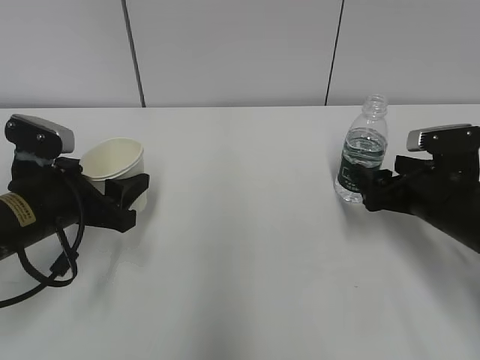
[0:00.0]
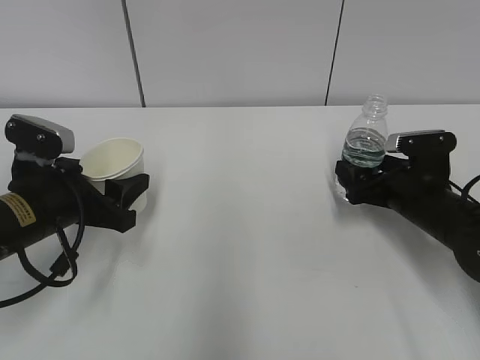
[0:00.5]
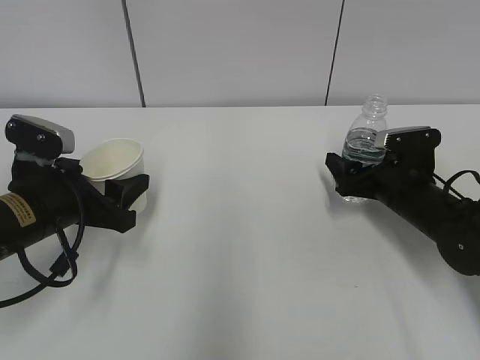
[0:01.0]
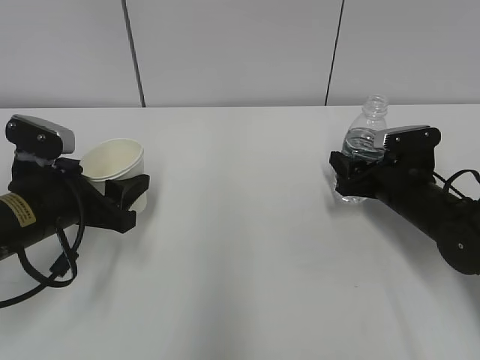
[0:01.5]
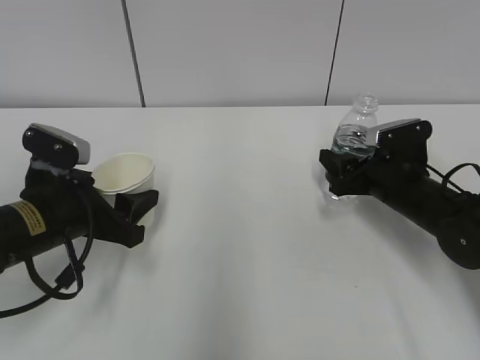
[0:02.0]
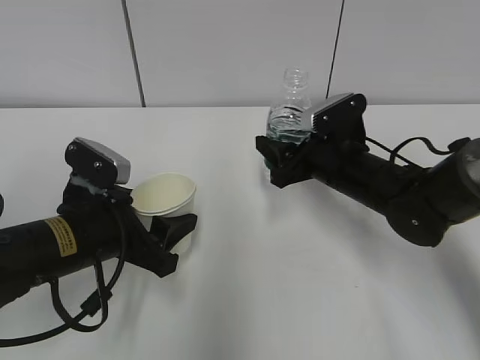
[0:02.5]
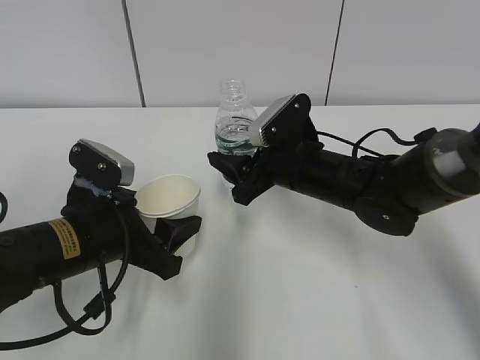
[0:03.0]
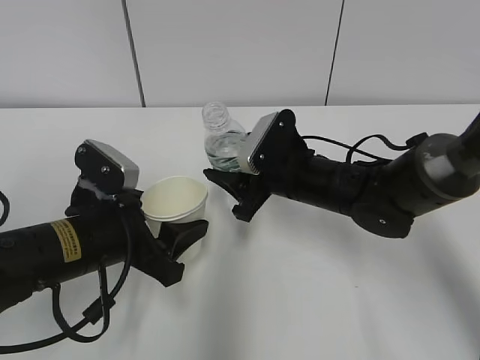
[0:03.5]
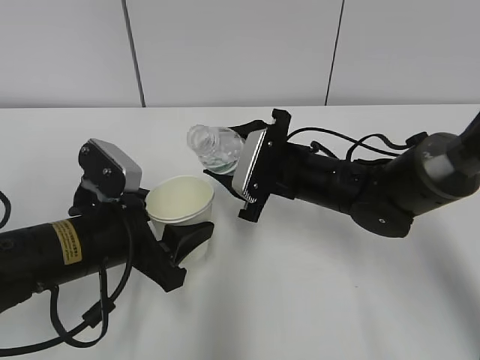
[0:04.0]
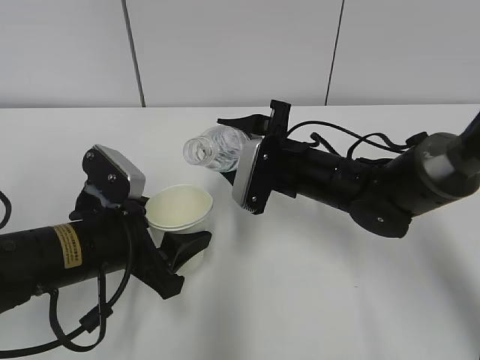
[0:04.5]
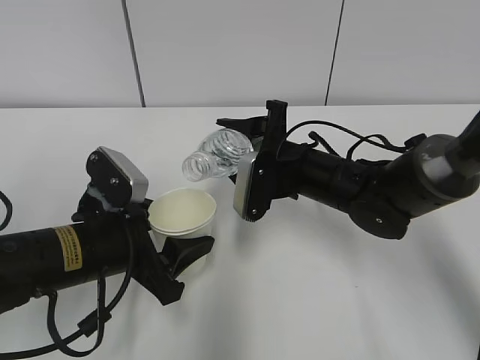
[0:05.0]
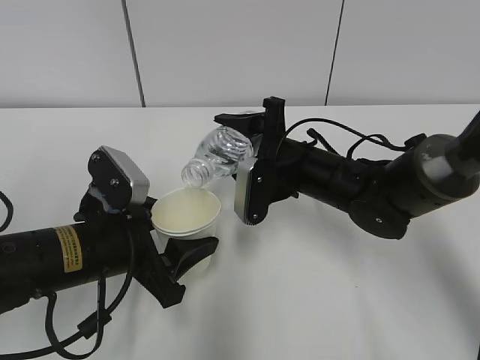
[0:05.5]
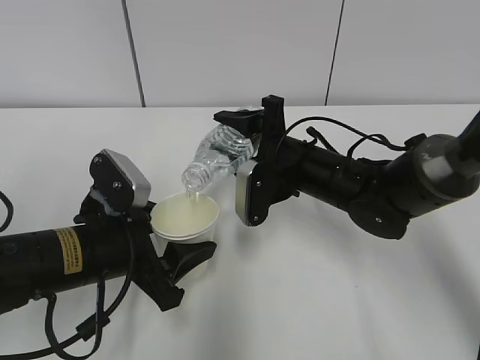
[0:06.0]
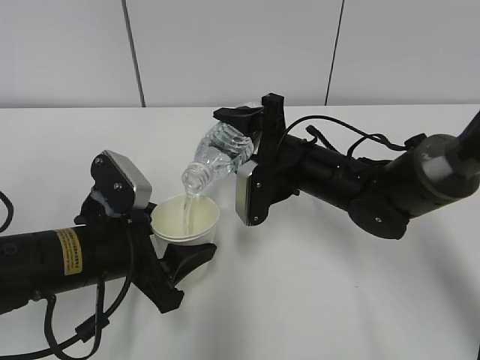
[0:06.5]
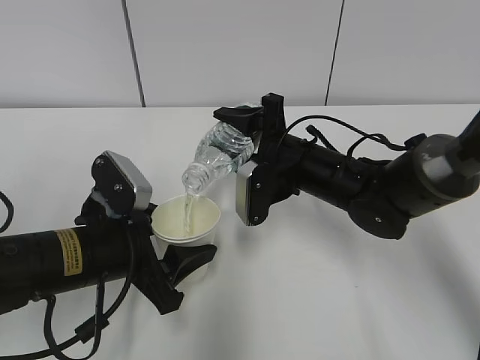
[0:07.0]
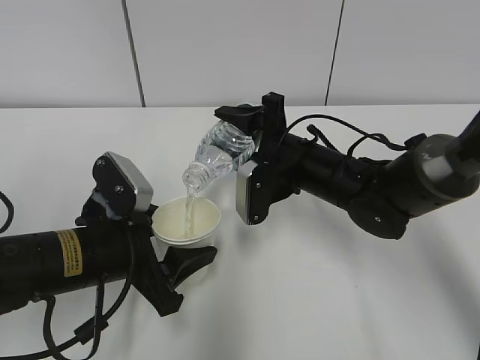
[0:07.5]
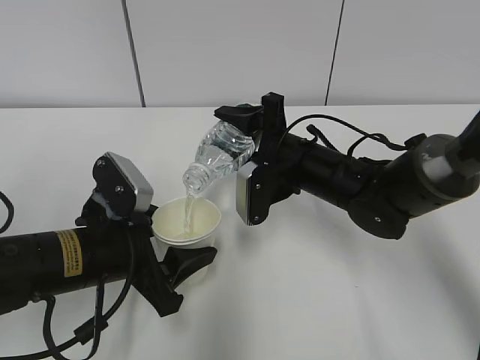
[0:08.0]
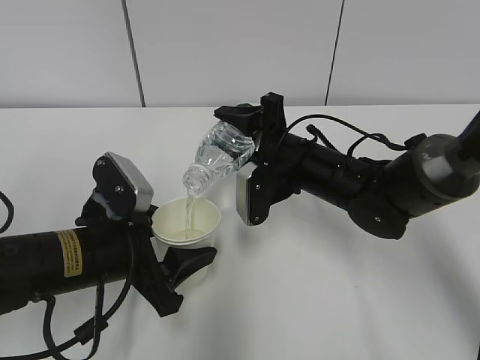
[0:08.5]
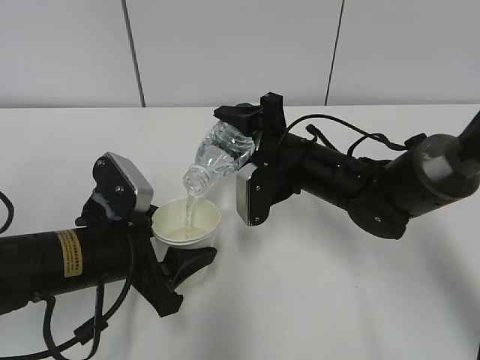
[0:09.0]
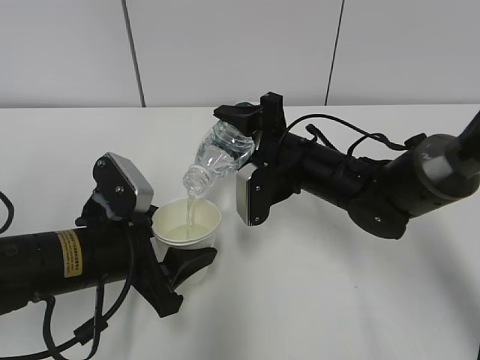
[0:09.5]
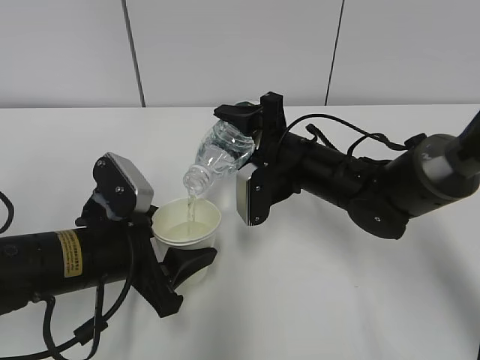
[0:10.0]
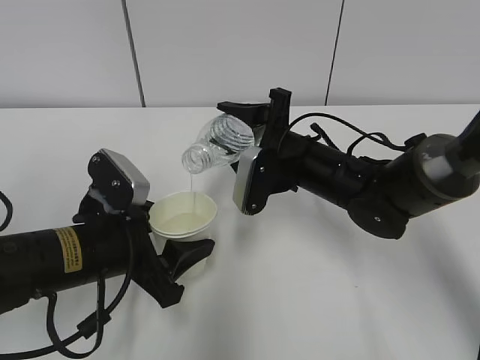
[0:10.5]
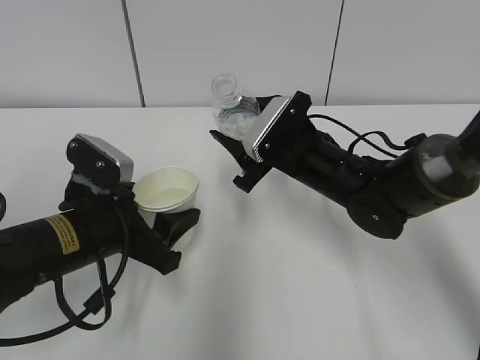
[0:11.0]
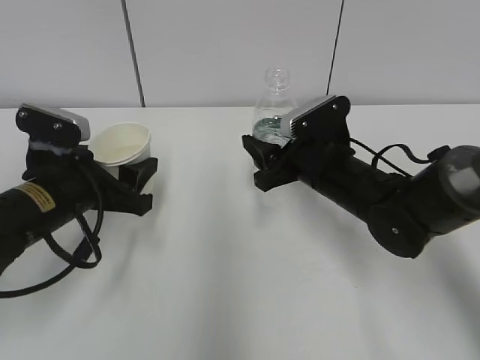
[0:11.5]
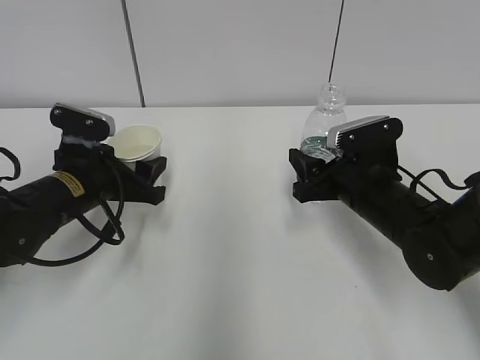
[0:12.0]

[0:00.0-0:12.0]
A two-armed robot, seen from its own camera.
Step, 0:00.0 to 0:03.0: Lift the paper cup with the left hand.
Step, 0:03.5 to 0:07.0: Fill water with the left hand.
Step, 0:03.5 to 0:07.0: Pour water with the right hand.
0:00.0 to 0:02.0: The right gripper moves forward, some 5 cm, and closes.
0:02.0 to 0:04.0: The left gripper moves to the right, roughly 5 cm. The right gripper goes about 15 cm to the left.
0:06.0 to 0:08.0: The grippers stay close to where they were, moving slightly.
0:08.0 to 0:10.0: Neither gripper changes place.
0:10.0 to 0:12.0: The left gripper shifts some 10 cm forward; the right gripper moves to the right, roughly 5 cm.

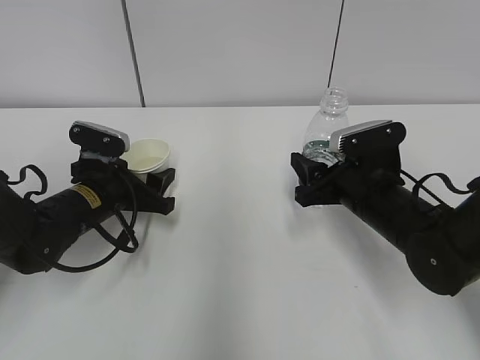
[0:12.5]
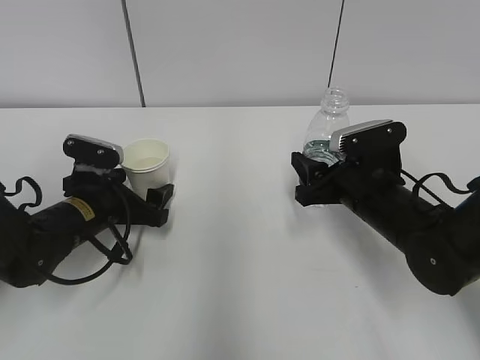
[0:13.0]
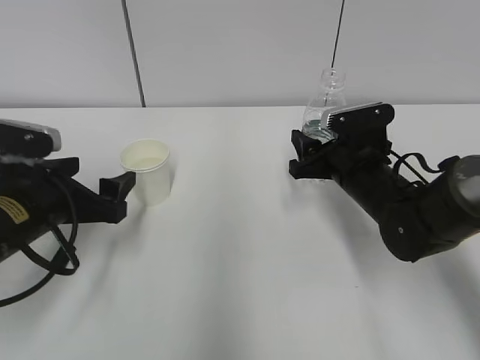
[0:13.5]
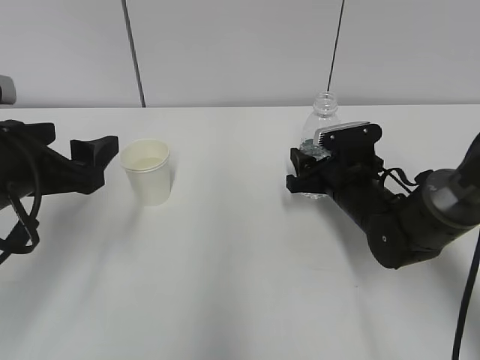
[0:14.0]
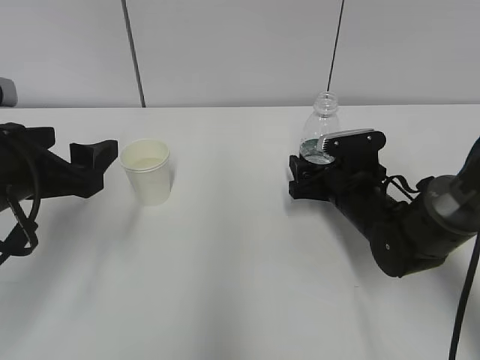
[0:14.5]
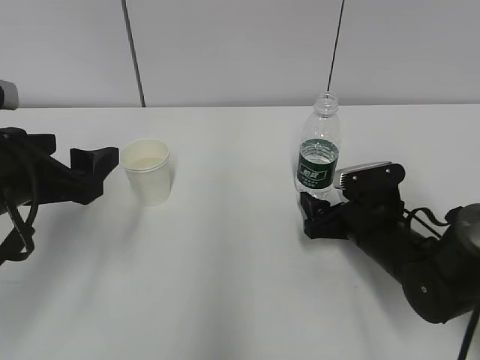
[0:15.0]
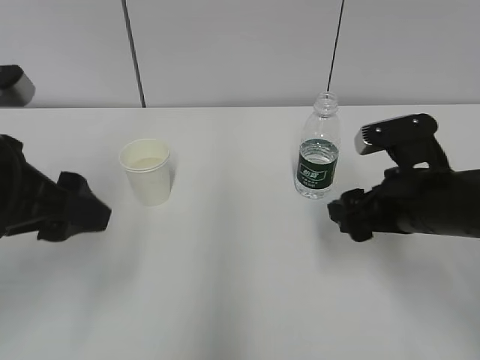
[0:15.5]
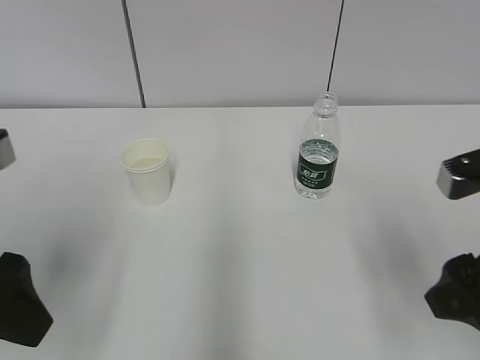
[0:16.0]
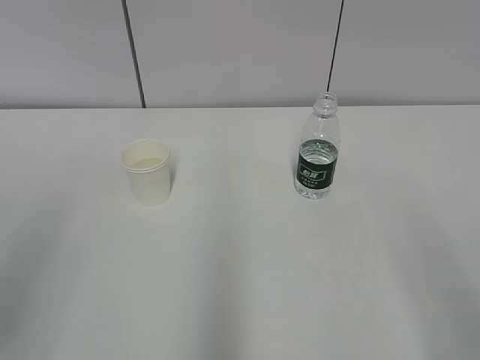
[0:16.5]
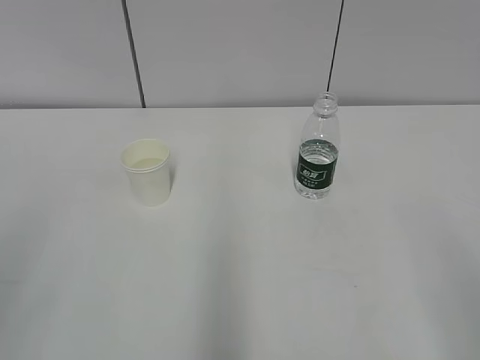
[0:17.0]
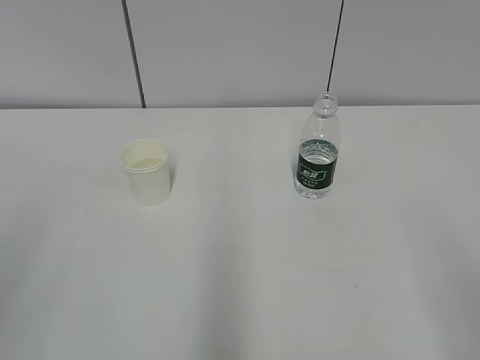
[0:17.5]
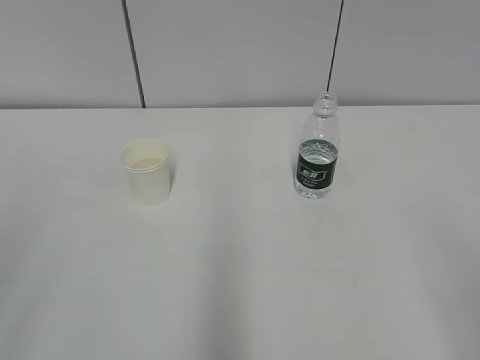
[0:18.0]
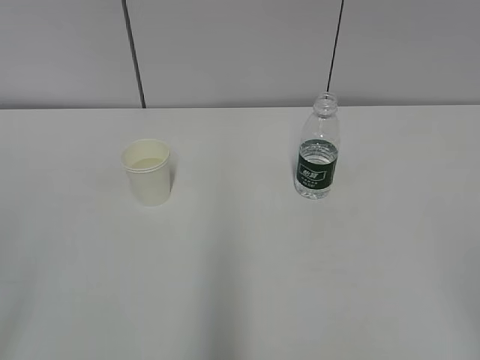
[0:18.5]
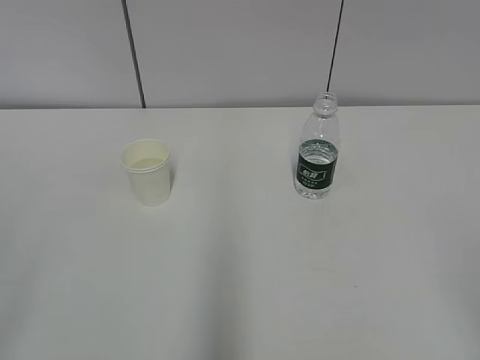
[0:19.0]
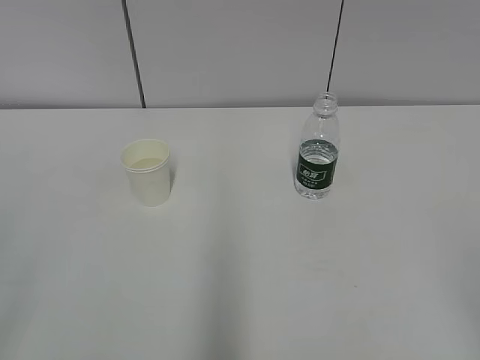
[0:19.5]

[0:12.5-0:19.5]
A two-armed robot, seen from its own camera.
0:12.5 to 0:14.5: The left gripper is displaced upward and backward by some 15 cm, and opens, while the right gripper moves roughly 5 cm, and opens its fingers.
0:14.5 to 0:16.0: The left gripper heads backward and upward, covering roughly 10 cm. Meanwhile the right gripper goes about 25 cm backward and upward.
0:16.0 to 0:17.5: The right gripper moves backward, about 15 cm, while the left gripper goes approximately 15 cm backward and to the left.
